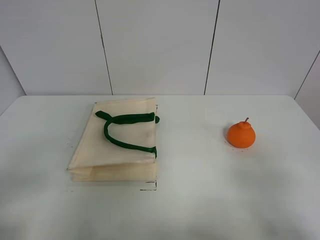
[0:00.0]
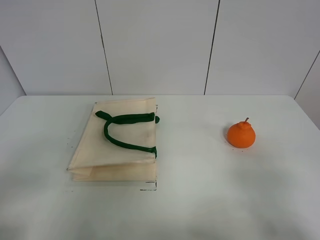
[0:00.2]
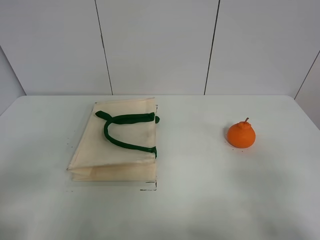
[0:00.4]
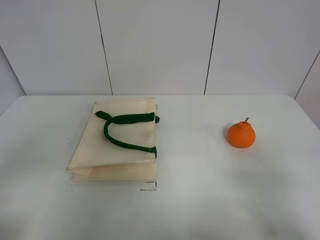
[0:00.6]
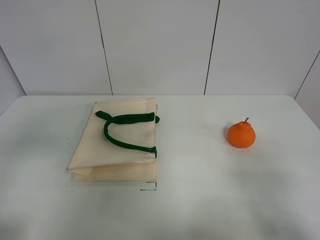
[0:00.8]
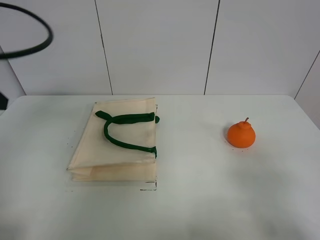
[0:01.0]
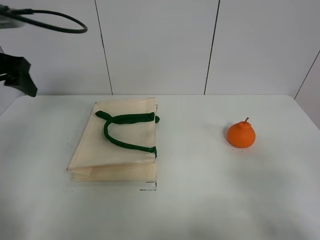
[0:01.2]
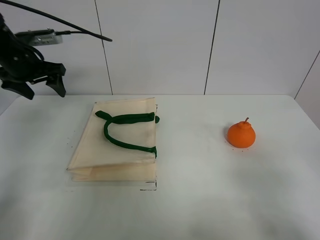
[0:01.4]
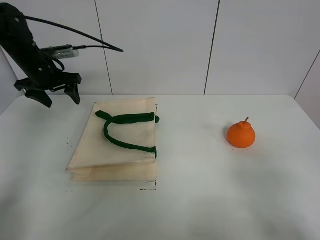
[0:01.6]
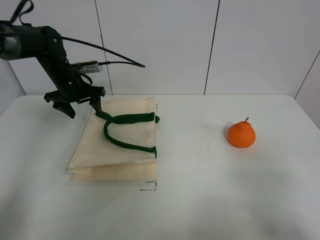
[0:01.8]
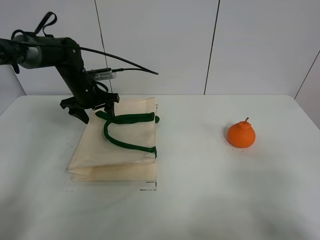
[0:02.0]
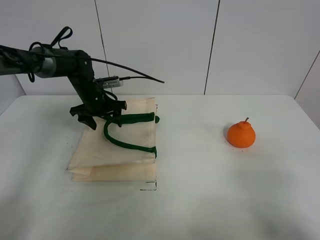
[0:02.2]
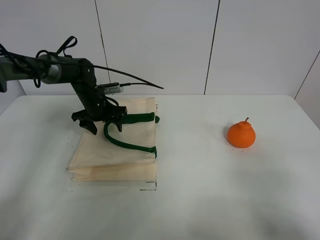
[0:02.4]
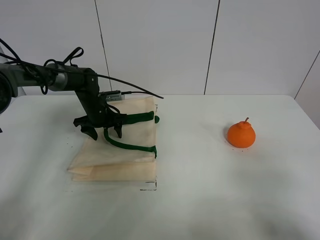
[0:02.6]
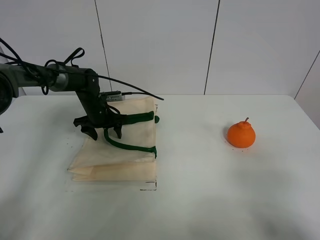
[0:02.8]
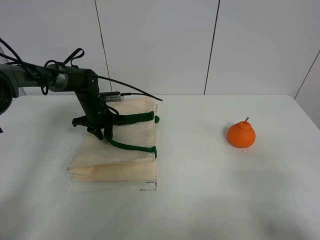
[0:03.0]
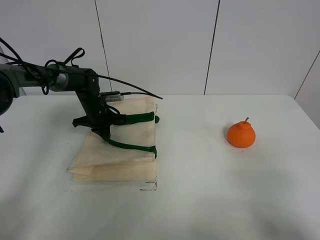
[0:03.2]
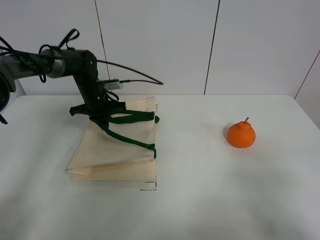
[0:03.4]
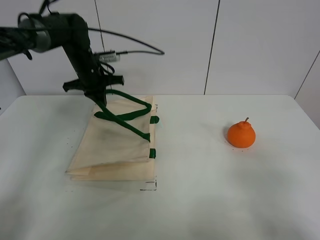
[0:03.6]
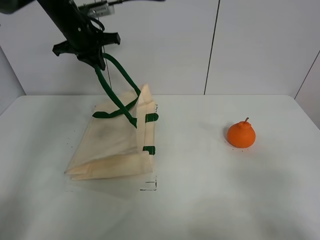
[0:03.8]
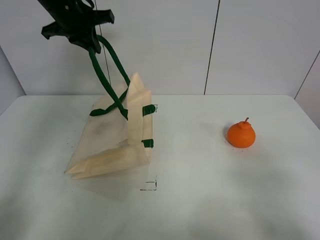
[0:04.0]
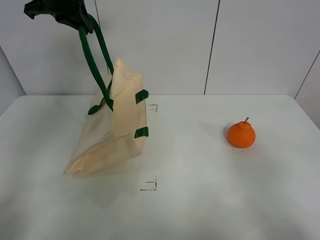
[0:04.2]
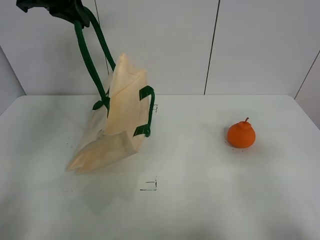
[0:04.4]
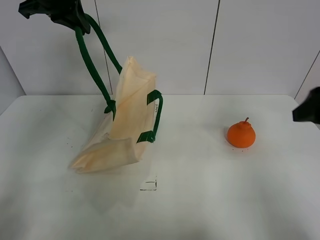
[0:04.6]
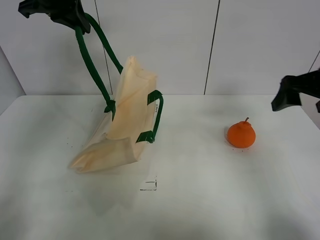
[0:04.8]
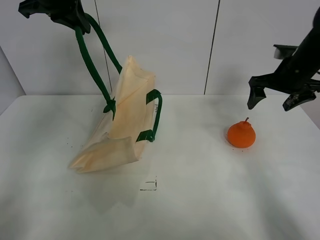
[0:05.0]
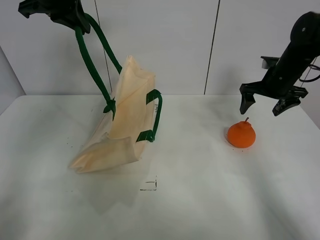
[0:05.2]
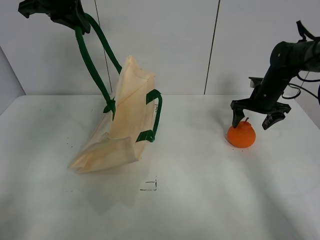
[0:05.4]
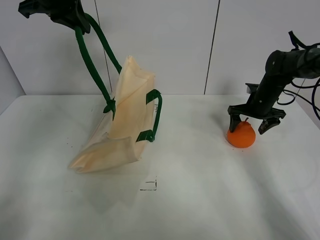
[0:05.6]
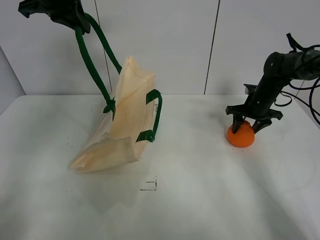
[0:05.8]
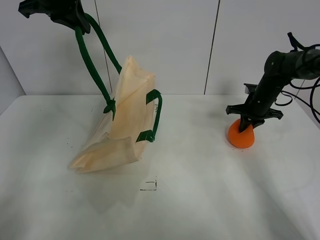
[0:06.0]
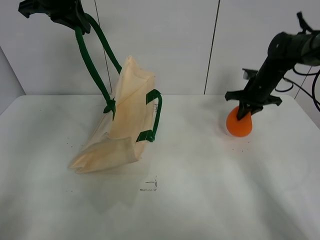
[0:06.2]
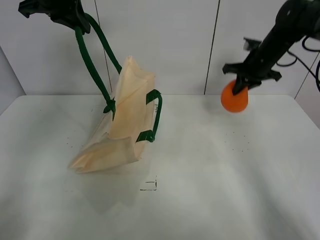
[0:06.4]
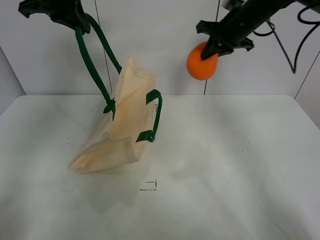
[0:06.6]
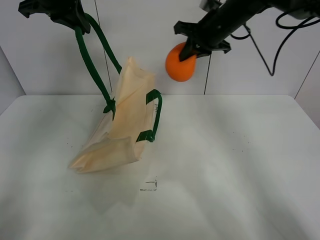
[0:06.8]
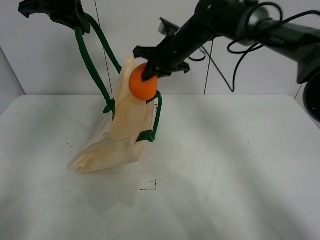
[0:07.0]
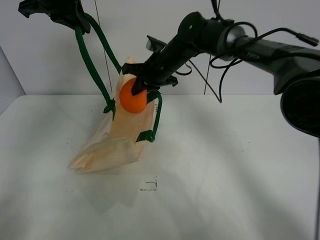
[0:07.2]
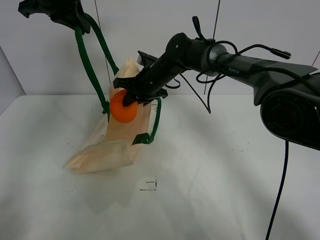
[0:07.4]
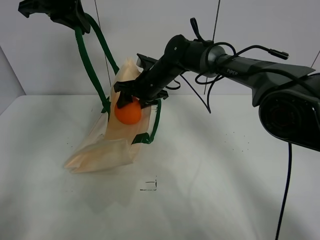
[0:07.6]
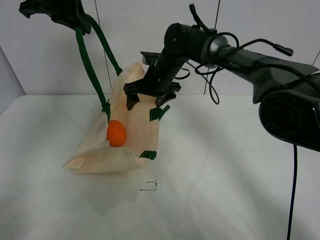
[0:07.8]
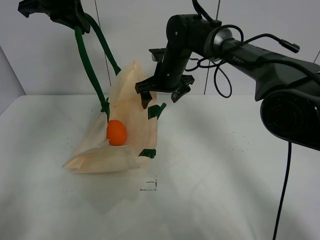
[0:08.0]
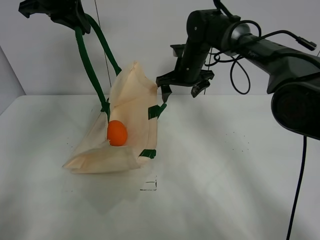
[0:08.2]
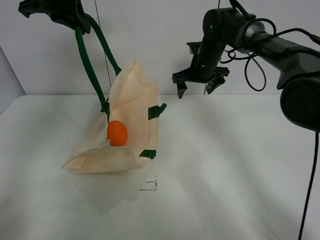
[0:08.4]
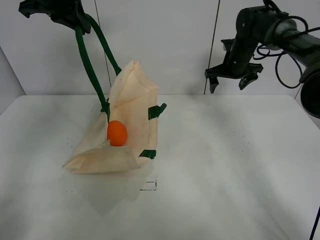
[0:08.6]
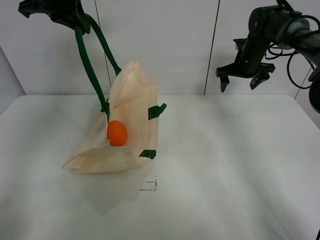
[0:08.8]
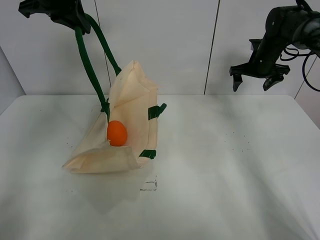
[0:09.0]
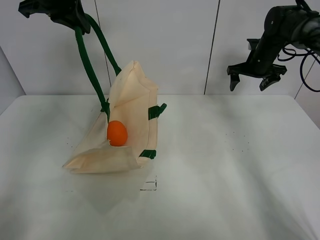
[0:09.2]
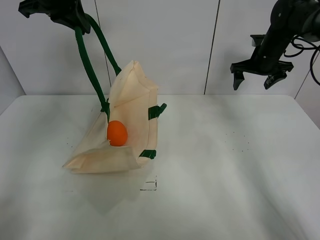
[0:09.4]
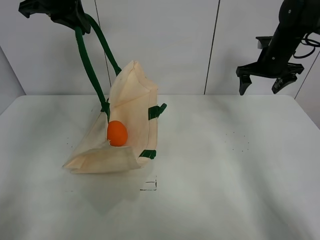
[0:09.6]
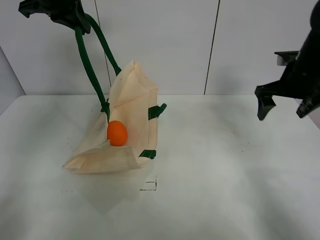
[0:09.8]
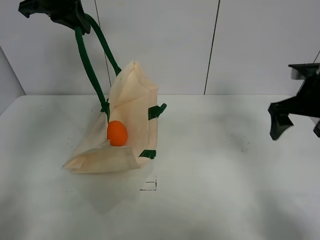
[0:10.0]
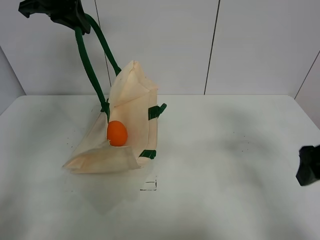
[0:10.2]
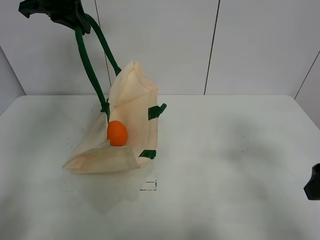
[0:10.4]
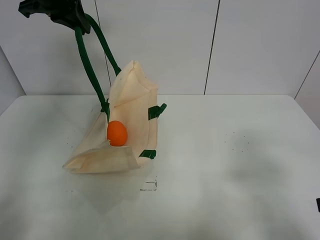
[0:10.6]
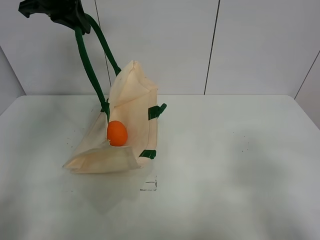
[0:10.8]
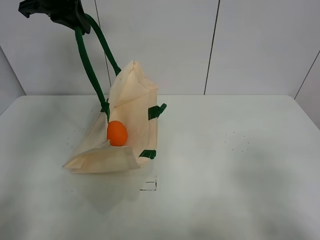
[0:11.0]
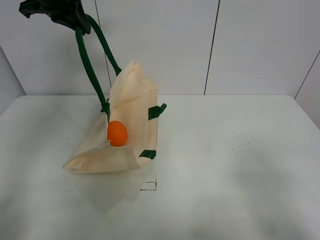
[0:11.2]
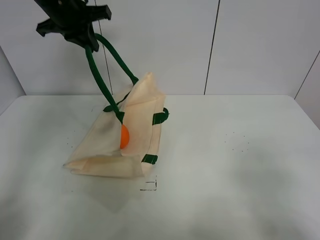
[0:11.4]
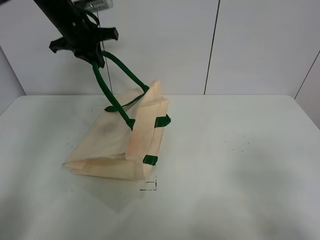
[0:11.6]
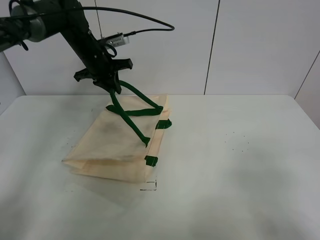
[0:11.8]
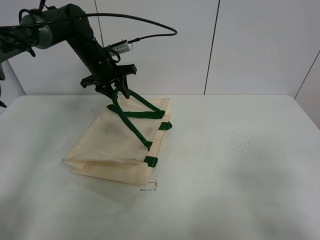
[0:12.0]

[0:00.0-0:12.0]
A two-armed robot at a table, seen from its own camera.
Task of the whole recording: open the white linen bag and put the orange in the bag.
Step, 0:00.0 to 0:04.2: Lift the handbag with left gripper.
Step, 0:04.4 to 0:06.0: Grasp the orange with right gripper.
Step, 0:06.2 to 0:07.8: Place the orange in the handbag with right gripper.
0:00.0 to 0:01.6: The left gripper travels forward by roughly 40 cm.
0:01.6 to 0:03.0: The left gripper is displaced downward and to the right by some 15 cm, and closes.
0:03.0 to 0:04.4: The left gripper shifts some 35 cm upward. Meanwhile the right gripper travels forward by some 10 cm.
0:04.4 to 0:06.0: The right gripper travels forward and downward by some 40 cm, and closes.
0:06.0 to 0:07.6: The right gripper shifts about 30 cm to the left, and opens up.
0:07.6 to 0:09.0: The right gripper goes roughly 30 cm to the right.
0:09.0 to 0:10.4: The right gripper shifts approximately 40 cm backward.
0:10.4 to 0:12.0: The right gripper goes approximately 10 cm backward. Meanwhile the left gripper shifts roughly 20 cm downward and forward, and opens its fingers.

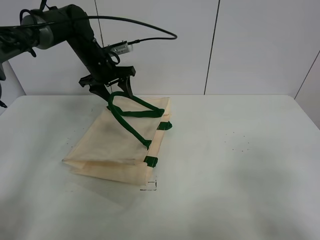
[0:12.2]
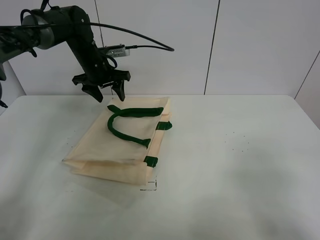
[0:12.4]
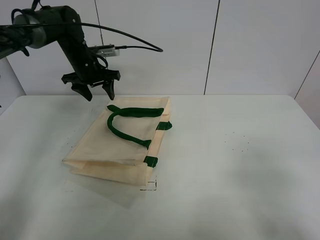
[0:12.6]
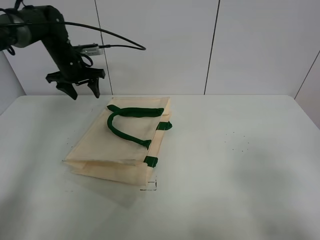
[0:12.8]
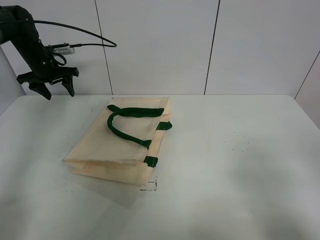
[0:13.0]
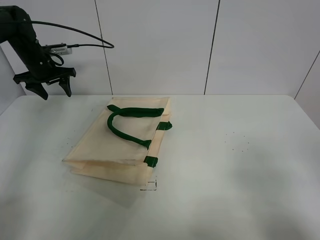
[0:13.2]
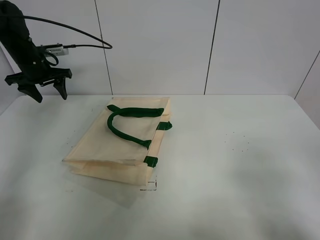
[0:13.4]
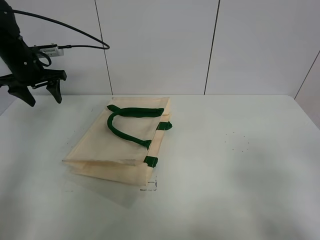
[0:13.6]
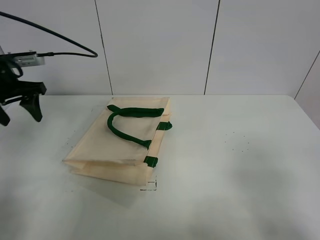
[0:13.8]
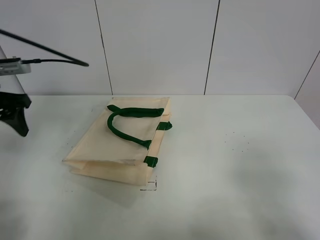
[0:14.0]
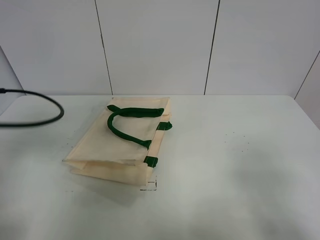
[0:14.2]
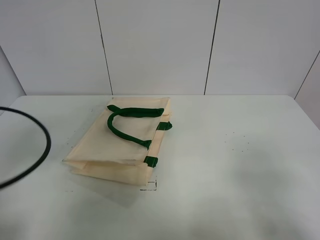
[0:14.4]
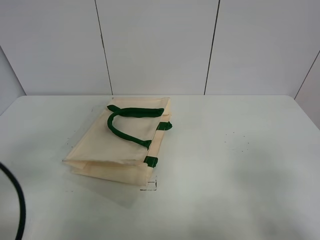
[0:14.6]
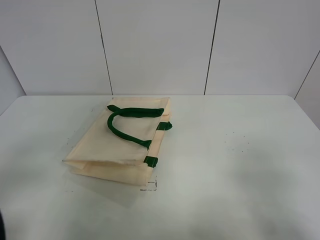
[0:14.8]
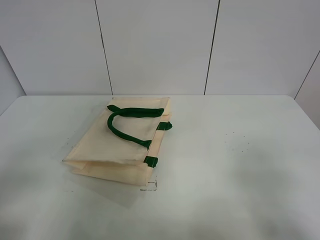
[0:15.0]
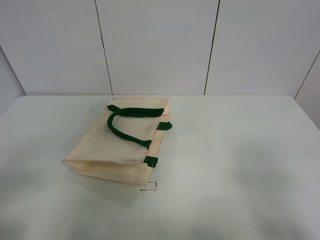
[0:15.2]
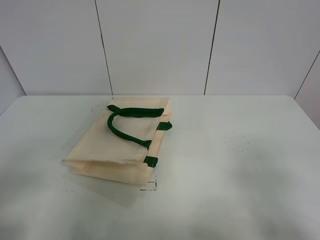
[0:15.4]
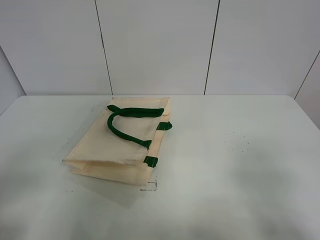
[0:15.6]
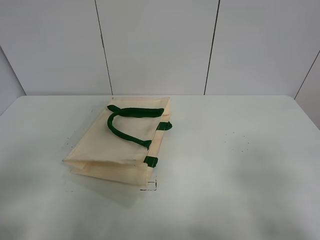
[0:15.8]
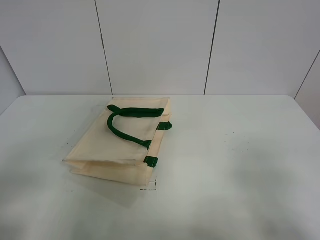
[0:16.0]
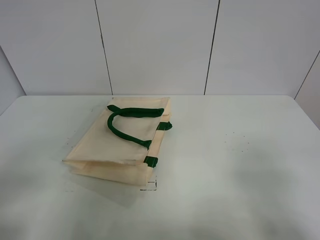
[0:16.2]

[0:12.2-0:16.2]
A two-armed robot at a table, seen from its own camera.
Task of the whole recording: open the white linen bag and put the orange in the bag.
0:12.2 to 0:13.6: The left gripper is displaced to the left by about 15 cm.
0:13.6 to 0:14.8: The left gripper moves backward, about 40 cm.
